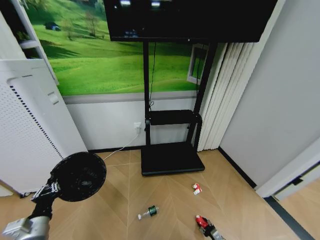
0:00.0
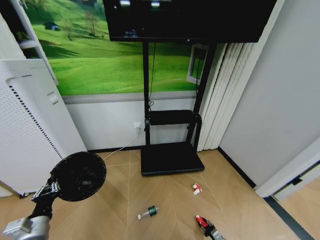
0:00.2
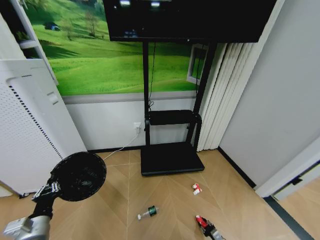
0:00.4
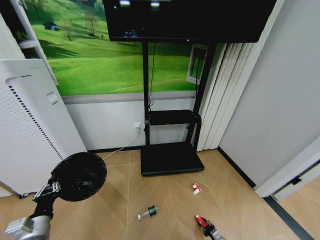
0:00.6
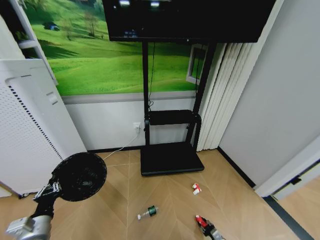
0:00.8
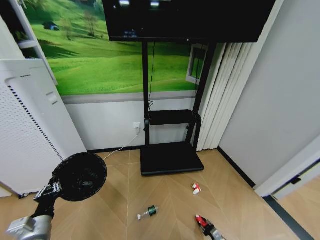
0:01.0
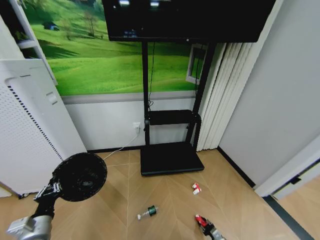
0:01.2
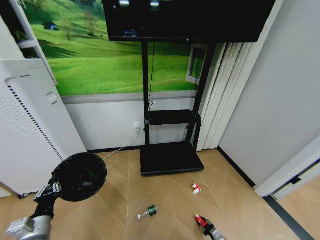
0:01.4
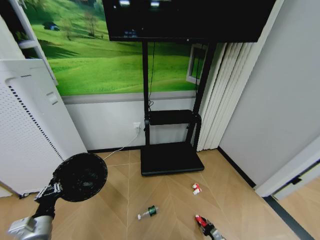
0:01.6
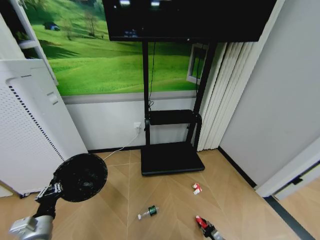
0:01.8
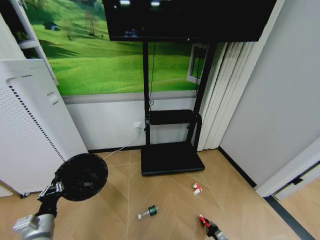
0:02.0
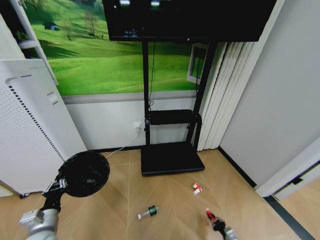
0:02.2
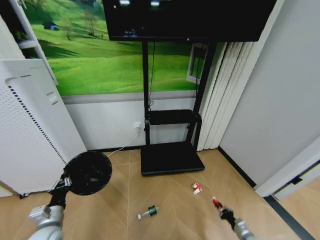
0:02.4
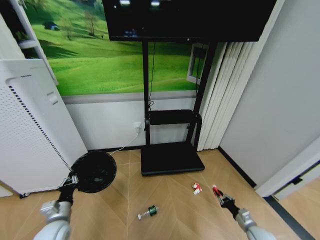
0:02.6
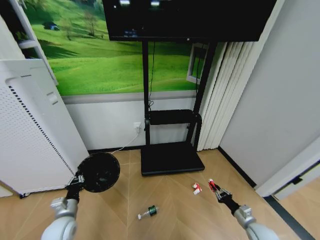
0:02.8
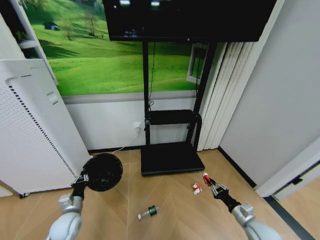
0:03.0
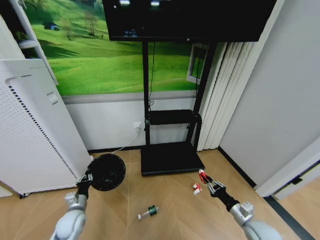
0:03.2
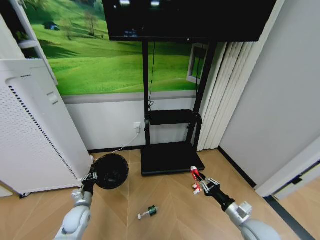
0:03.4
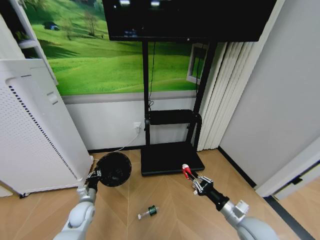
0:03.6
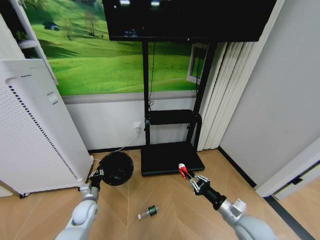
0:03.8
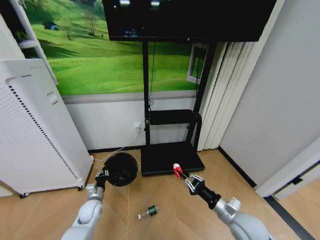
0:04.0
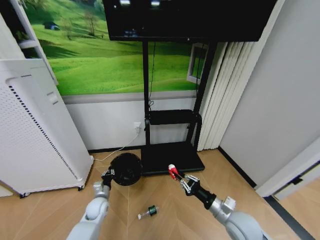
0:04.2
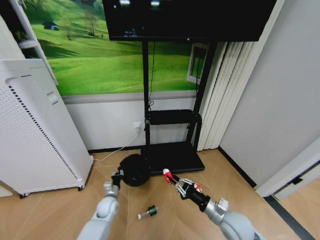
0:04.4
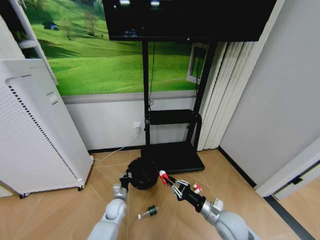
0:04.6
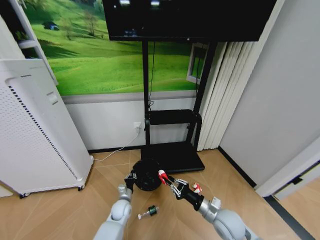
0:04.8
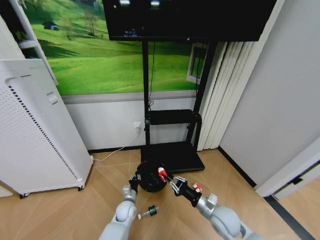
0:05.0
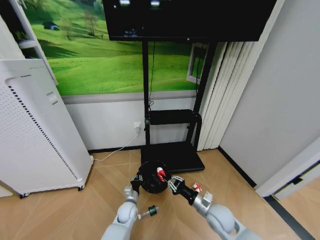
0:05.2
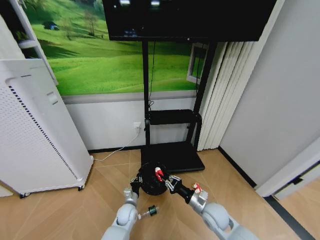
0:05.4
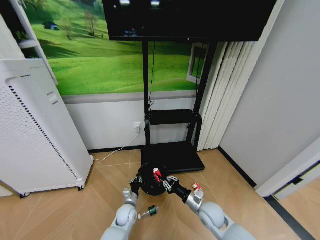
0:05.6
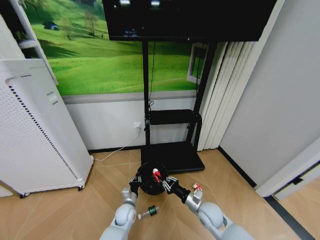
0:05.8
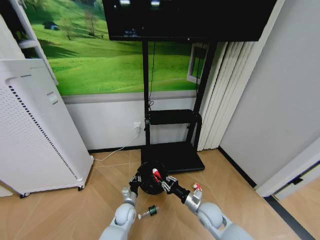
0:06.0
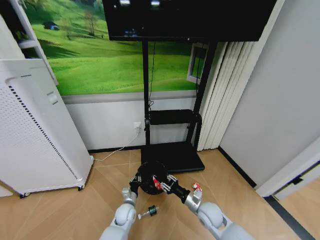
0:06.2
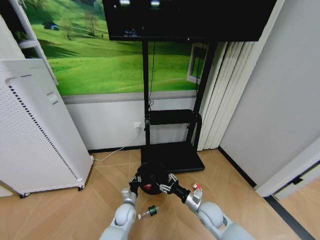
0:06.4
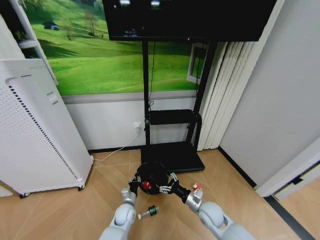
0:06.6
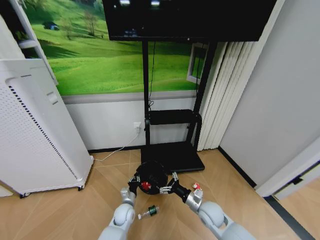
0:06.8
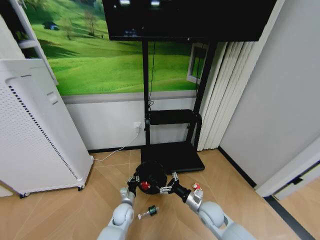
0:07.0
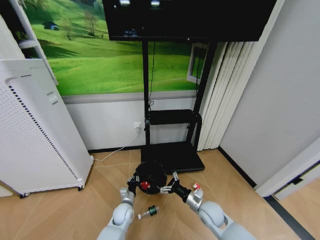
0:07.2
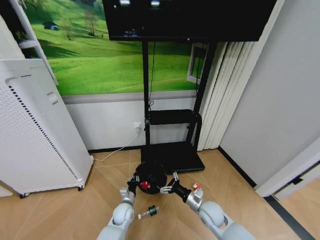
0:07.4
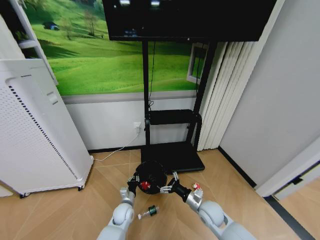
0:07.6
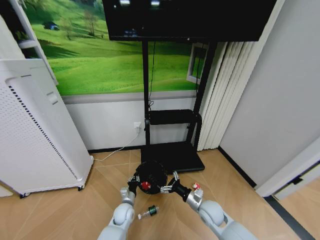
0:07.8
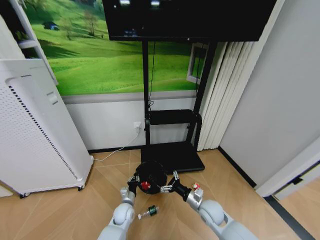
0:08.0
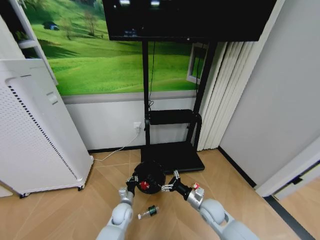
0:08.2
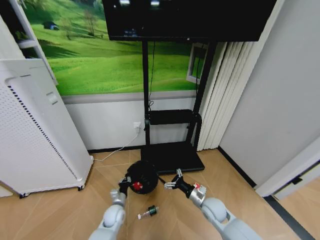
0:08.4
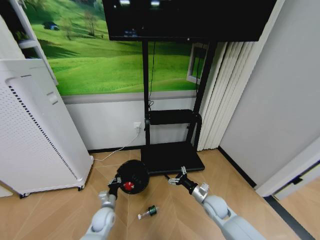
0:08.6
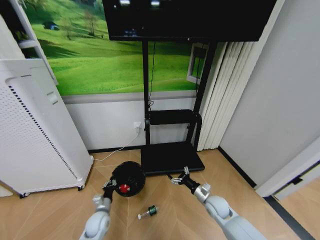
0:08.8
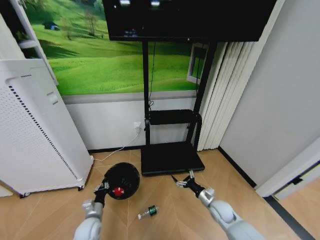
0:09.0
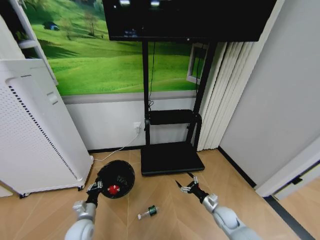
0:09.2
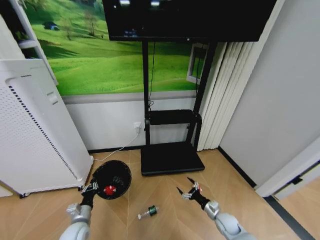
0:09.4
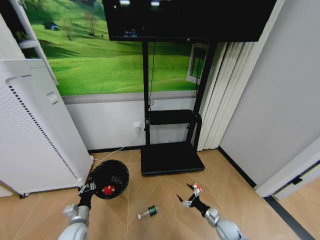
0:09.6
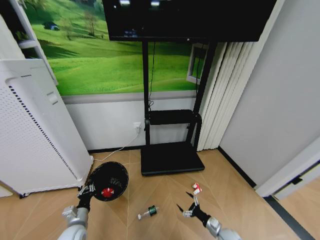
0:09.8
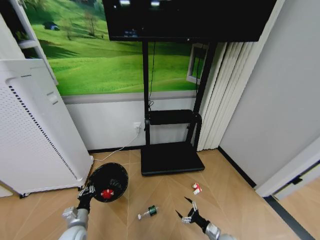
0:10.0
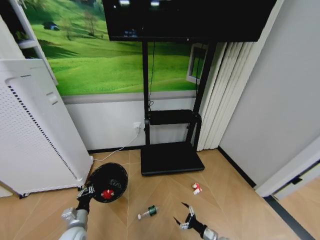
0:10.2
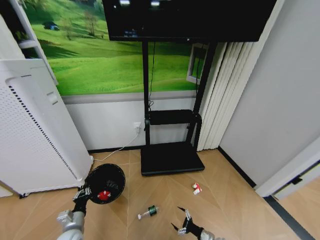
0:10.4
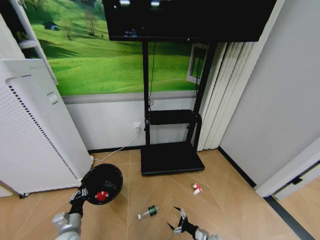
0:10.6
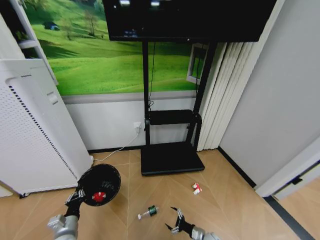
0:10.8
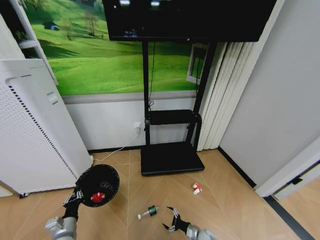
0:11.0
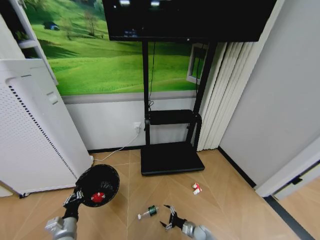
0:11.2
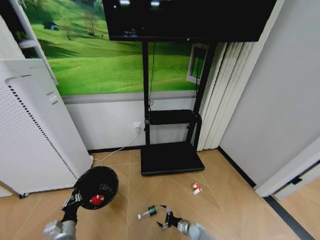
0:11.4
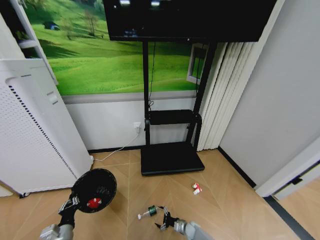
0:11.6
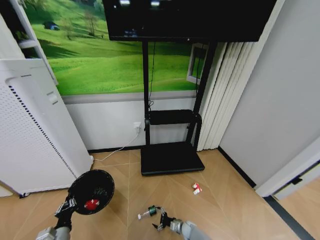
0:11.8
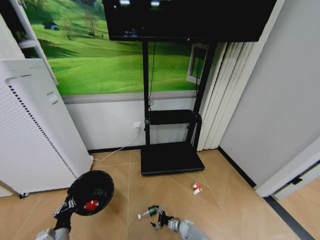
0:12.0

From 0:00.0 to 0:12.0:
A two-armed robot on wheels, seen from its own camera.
Task of the whole recording: Pick up the trash bin and place the garbage on the floor into it.
From 0:00.0 to 0:01.6: The two grippers keep their place.
From 0:01.6 to 0:03.0: The left gripper shifts some 10 cm forward and downward. The right gripper moves upward, roughly 25 cm.
From 0:03.0 to 0:04.4: The left gripper goes approximately 15 cm to the right, forward and downward. Meanwhile the right gripper travels to the left and upward by some 15 cm.
From 0:04.4 to 0:06.0: The right gripper is displaced downward and forward by about 10 cm; the left gripper moves to the right, about 10 cm.
From 0:06.0 to 0:07.6: The right gripper opens its fingers.
From 0:07.6 to 0:09.0: The left gripper heads to the left and backward, covering about 15 cm; the right gripper goes approximately 10 cm to the right.
From 0:09.0 to 0:10.4: The left gripper heads to the left, covering some 5 cm; the right gripper heads downward and backward, covering about 20 cm.
From 0:10.4 to 0:12.0: The right gripper heads to the left, forward and downward, covering roughly 20 cm. Meanwhile the left gripper shifts approximately 5 cm backward.

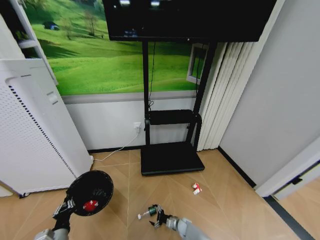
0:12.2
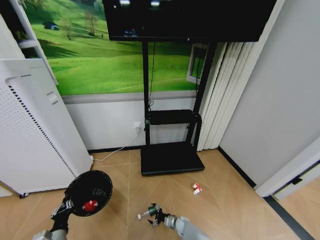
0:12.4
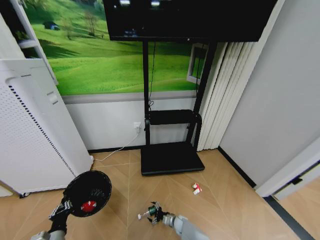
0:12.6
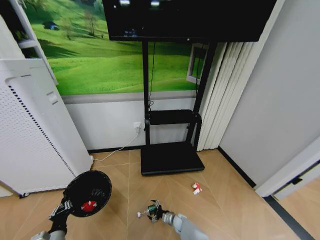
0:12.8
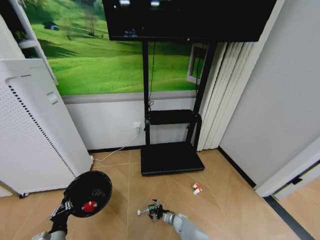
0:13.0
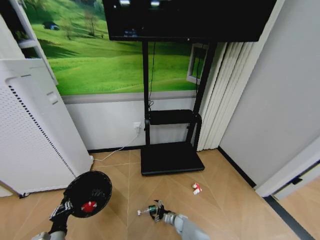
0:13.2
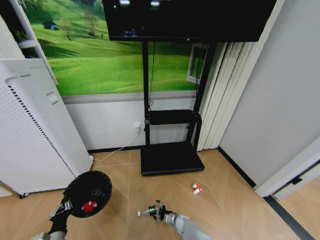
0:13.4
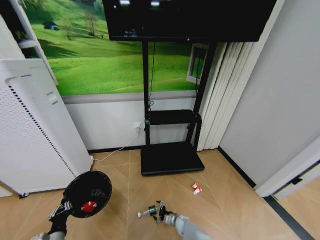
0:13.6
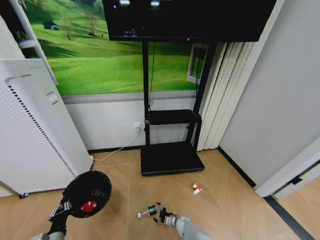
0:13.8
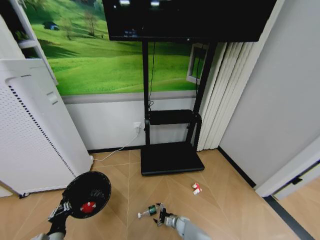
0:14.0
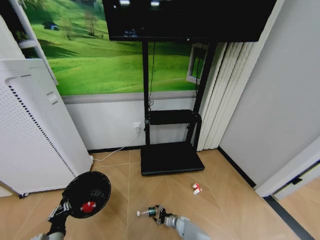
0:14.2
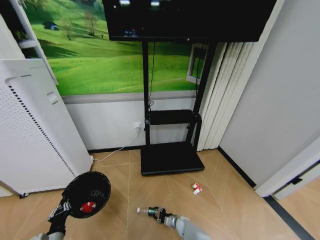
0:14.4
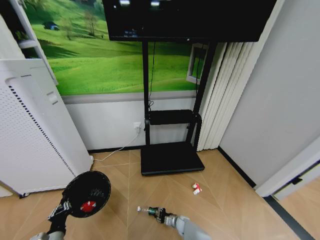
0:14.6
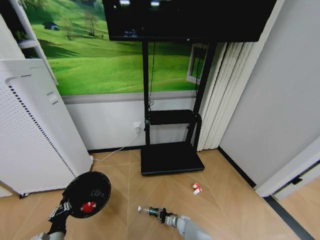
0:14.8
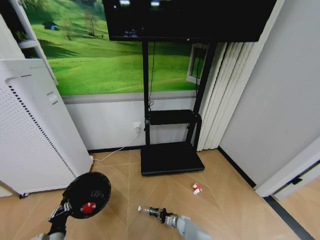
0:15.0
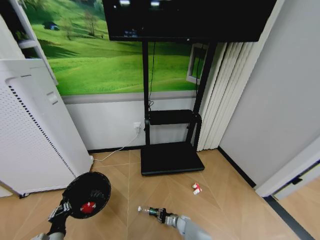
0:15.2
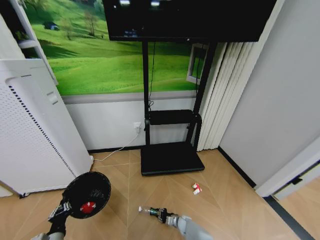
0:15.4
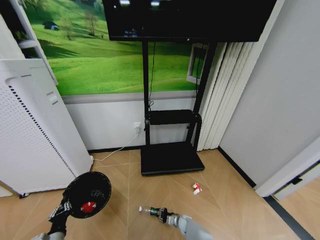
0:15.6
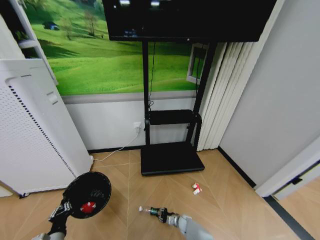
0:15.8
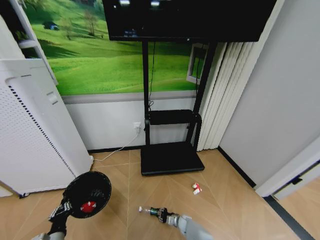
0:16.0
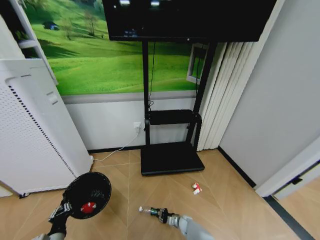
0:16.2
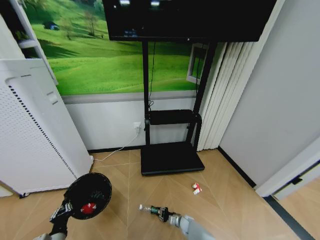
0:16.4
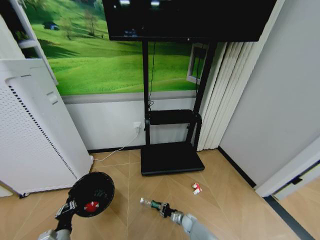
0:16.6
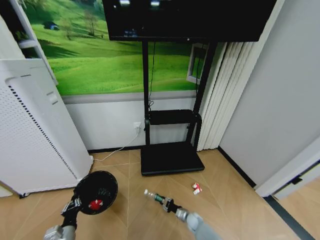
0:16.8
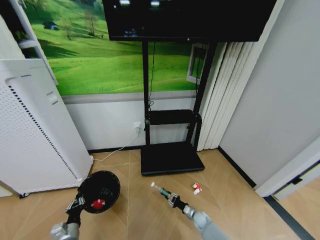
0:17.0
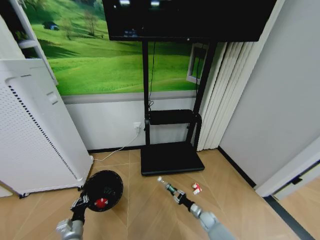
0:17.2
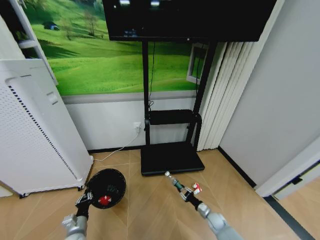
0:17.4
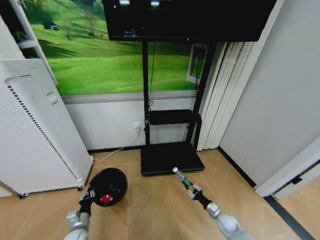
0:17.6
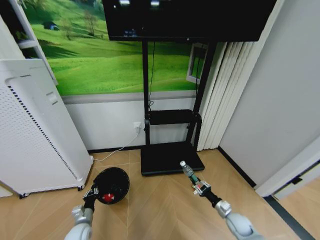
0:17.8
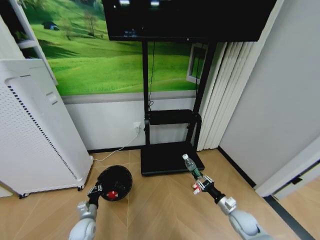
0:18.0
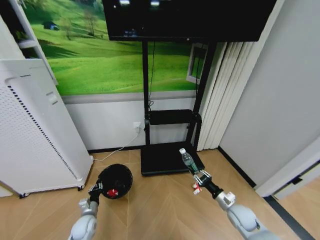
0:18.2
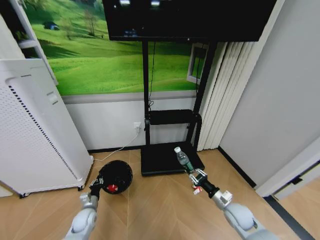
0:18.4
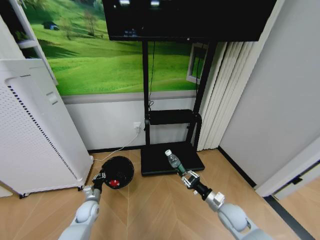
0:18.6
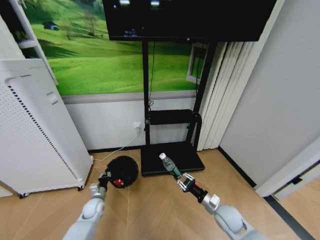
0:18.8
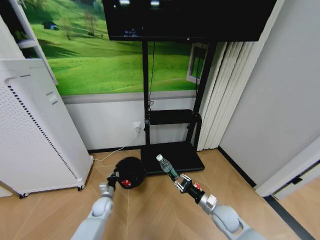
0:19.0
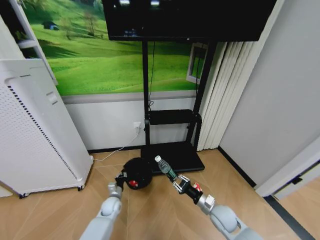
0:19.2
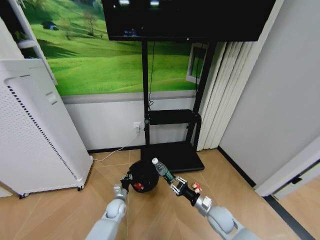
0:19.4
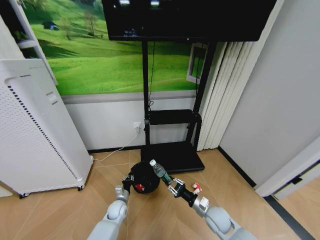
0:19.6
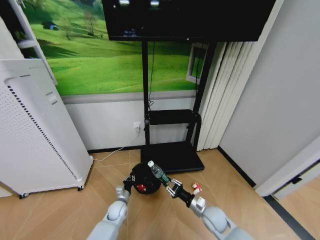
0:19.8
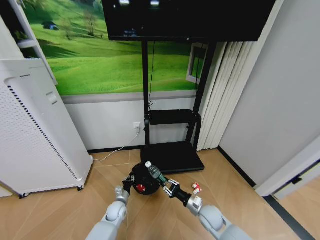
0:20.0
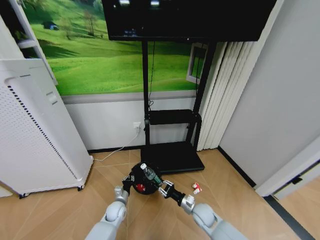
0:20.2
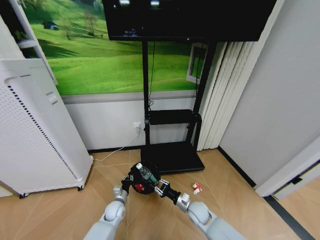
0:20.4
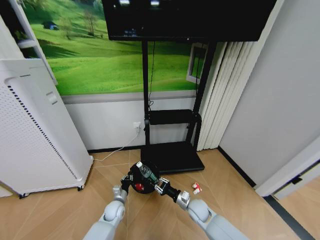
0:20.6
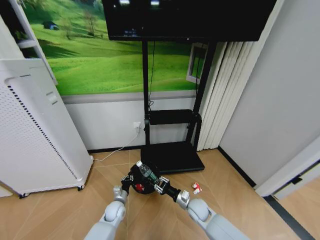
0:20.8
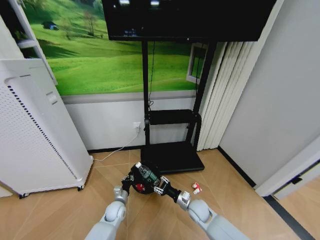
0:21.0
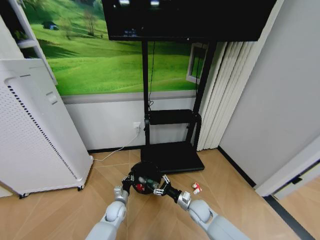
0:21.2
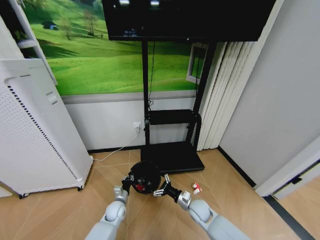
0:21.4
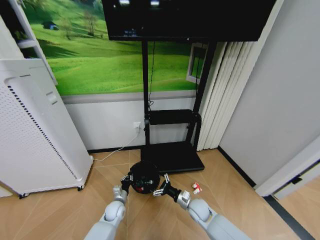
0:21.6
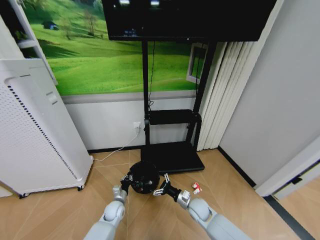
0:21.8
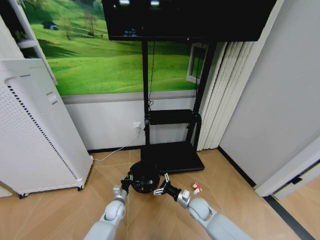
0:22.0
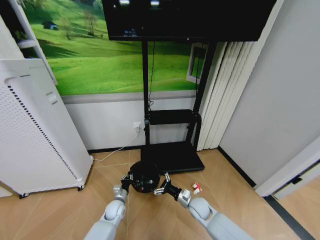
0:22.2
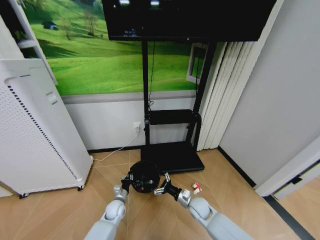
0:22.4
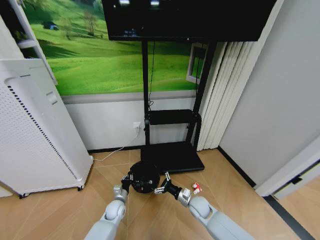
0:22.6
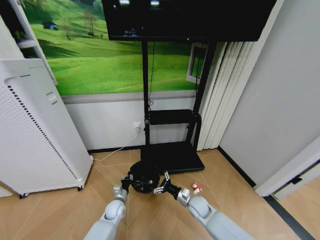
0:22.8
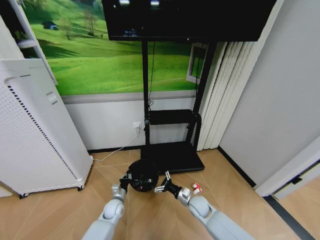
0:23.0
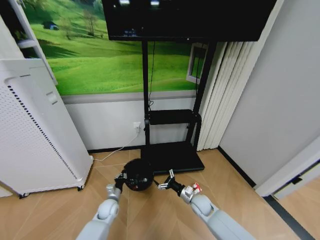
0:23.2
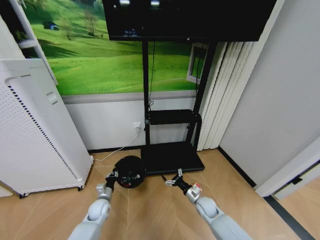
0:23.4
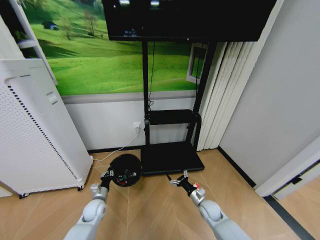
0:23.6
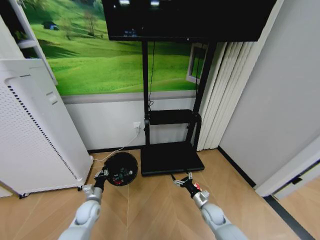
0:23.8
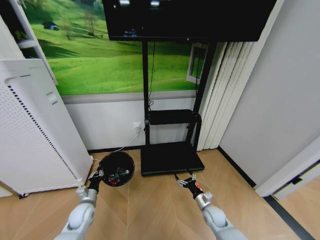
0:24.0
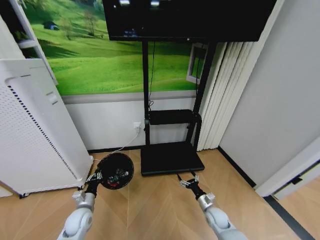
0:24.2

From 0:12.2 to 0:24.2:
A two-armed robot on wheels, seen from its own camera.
Task of the whole recording: Pick up the trash bin and place the garbage on the floor into it.
From 0:12.2 to 0:13.8: The grippers move only a little.
From 0:15.2 to 0:16.6: The grippers stay close to where they were, moving slightly.
From 0:16.6 to 0:18.2: The left gripper moves forward and downward, some 15 cm; the right gripper goes roughly 30 cm upward and to the right.
From 0:18.2 to 0:19.8: The left gripper is displaced to the right and forward by approximately 15 cm. The right gripper heads to the left, covering some 10 cm.
From 0:19.8 to 0:21.2: The right gripper moves about 5 cm, and opens its fingers.
From 0:21.2 to 0:22.6: There are only small adjustments of the grippers.
From 0:22.6 to 0:24.2: The left gripper is displaced to the left, upward and backward by approximately 15 cm, while the right gripper heads to the right, covering some 10 cm.
